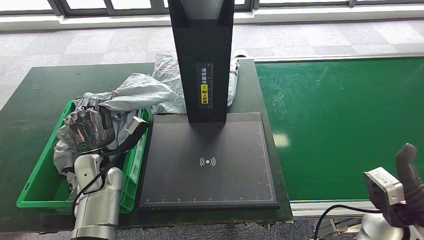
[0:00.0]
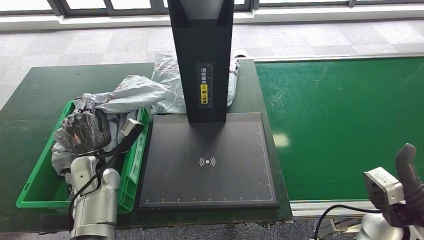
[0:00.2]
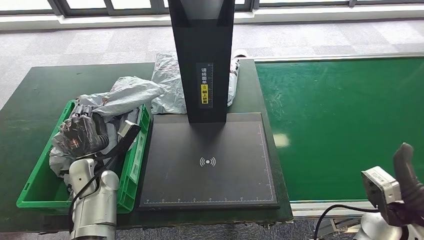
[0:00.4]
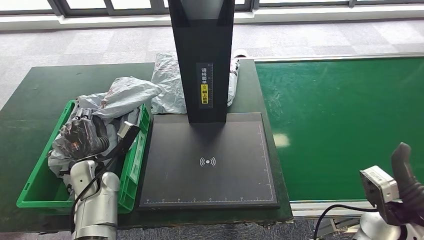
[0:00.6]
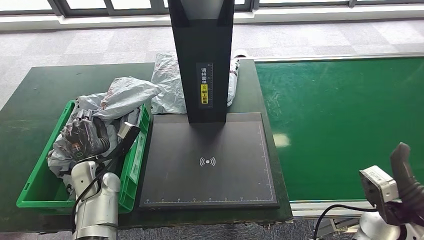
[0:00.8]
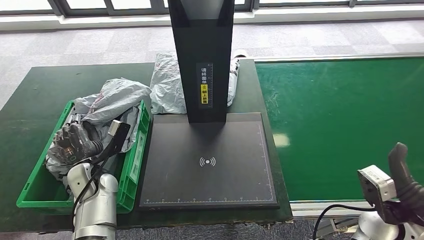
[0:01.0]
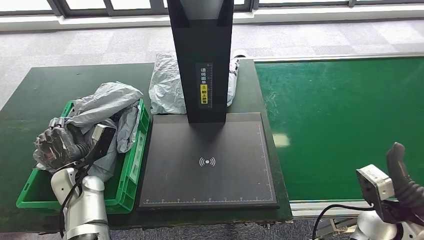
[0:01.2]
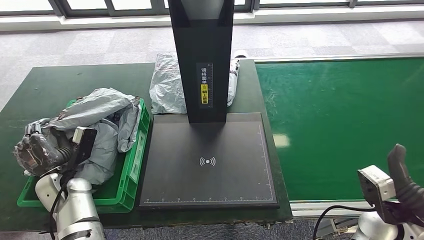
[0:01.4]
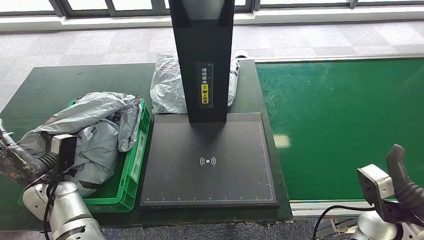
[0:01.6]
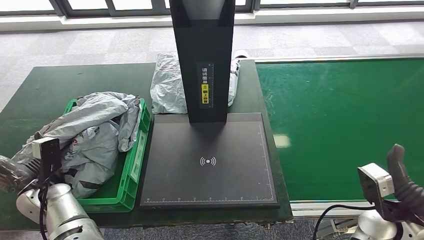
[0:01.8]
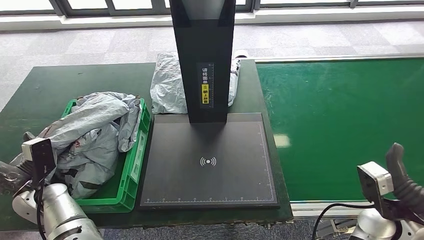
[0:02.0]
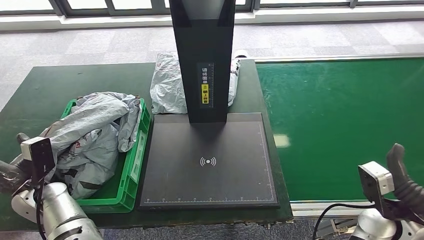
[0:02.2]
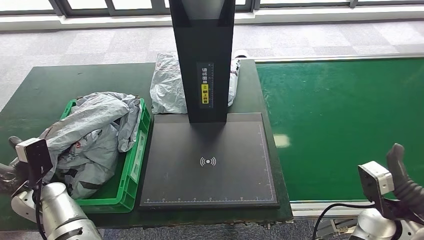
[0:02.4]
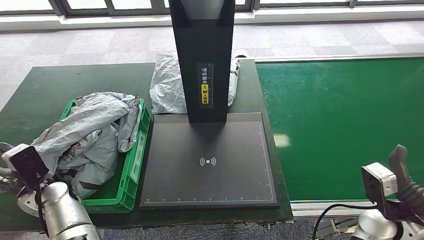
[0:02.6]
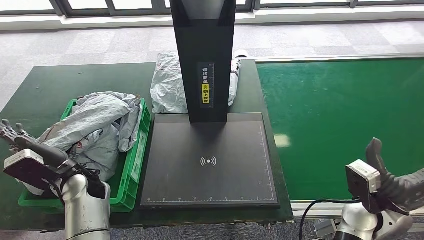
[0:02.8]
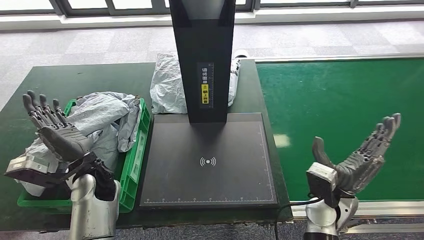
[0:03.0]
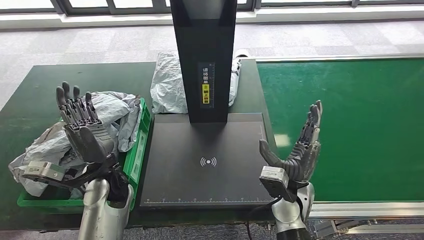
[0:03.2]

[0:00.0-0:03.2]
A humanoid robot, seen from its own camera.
Step, 0:00.0 to 0:03.2: Place the parcel into the delivery box.
